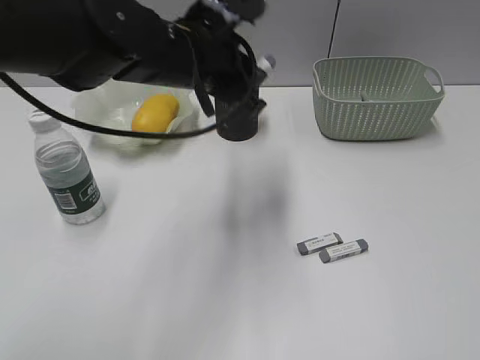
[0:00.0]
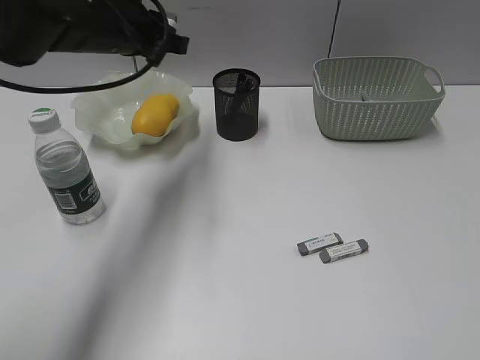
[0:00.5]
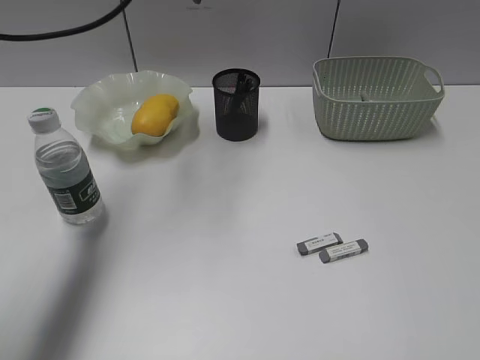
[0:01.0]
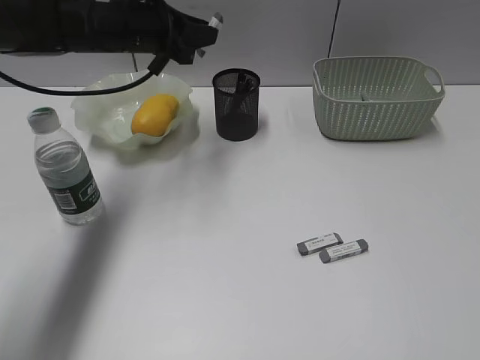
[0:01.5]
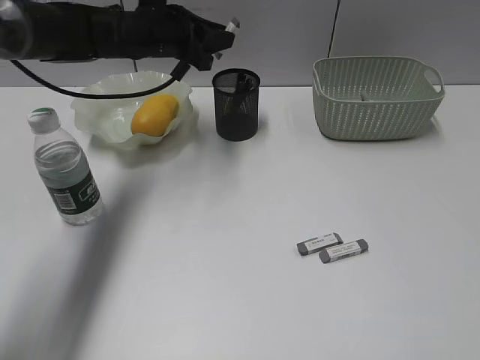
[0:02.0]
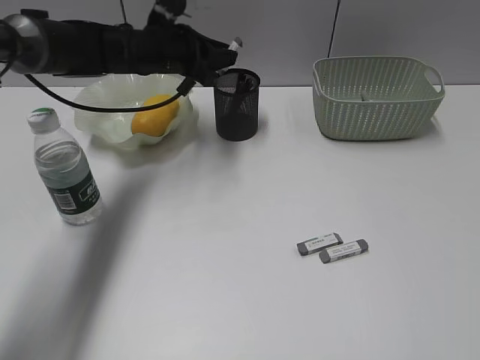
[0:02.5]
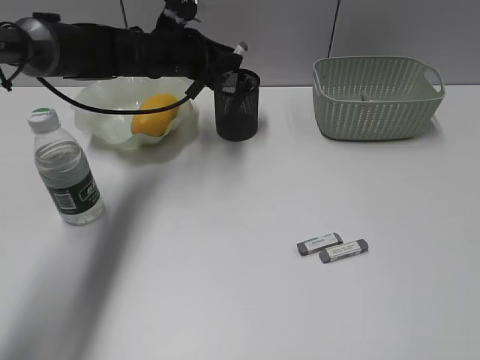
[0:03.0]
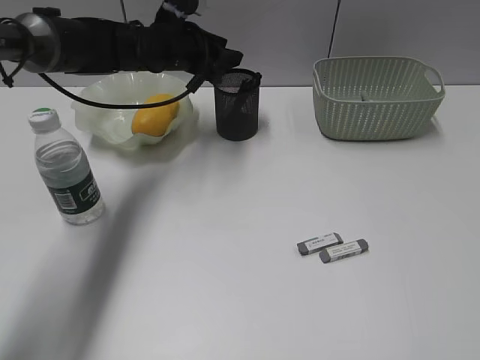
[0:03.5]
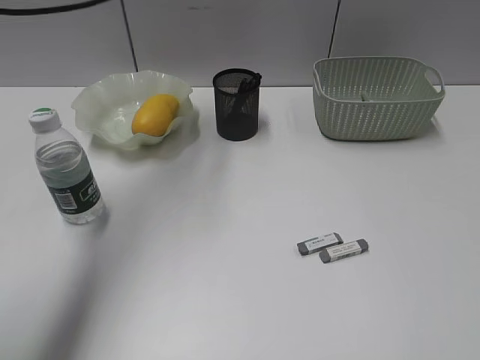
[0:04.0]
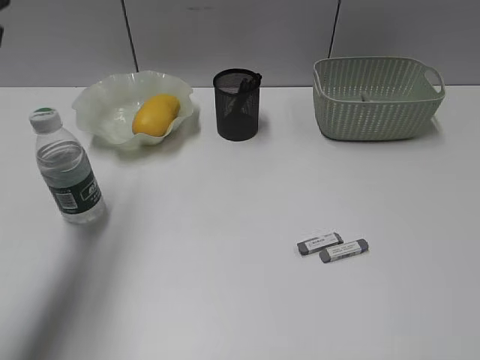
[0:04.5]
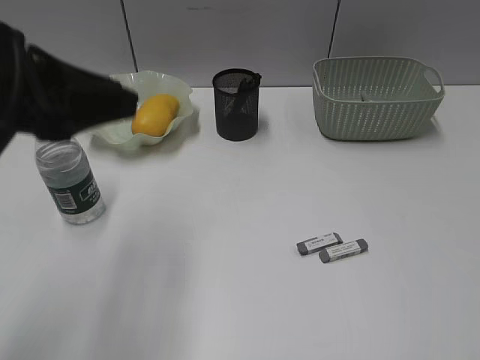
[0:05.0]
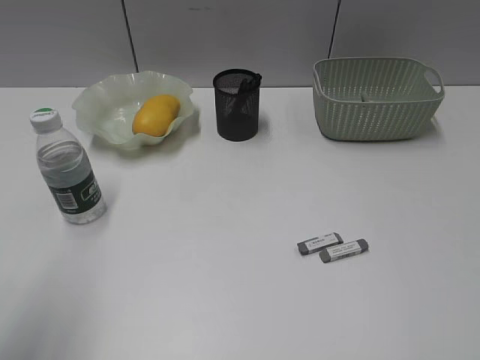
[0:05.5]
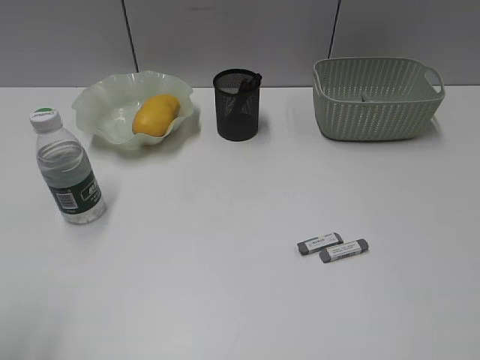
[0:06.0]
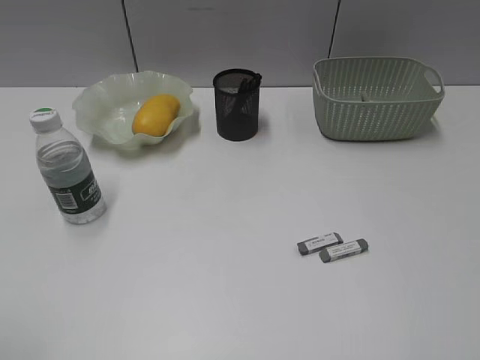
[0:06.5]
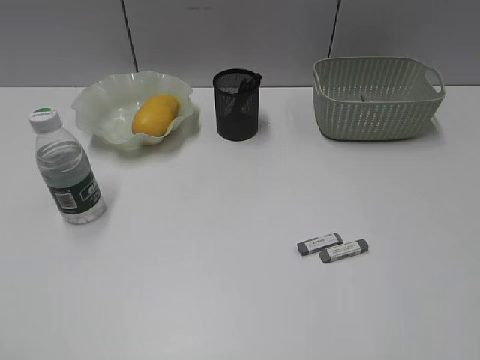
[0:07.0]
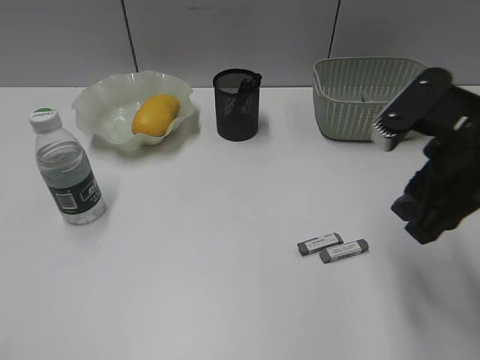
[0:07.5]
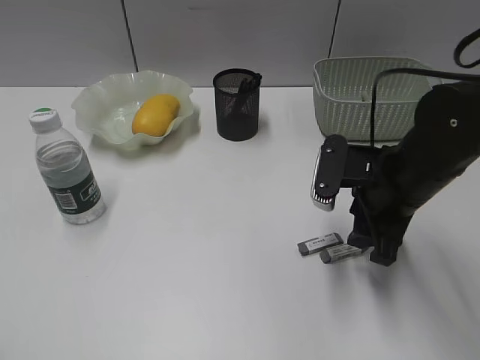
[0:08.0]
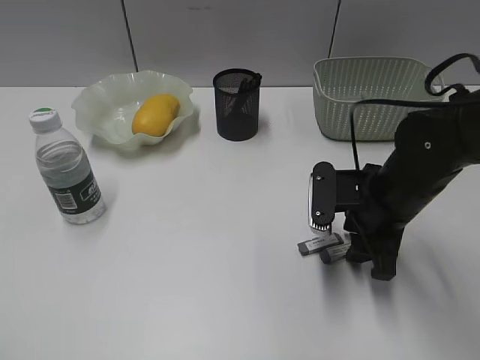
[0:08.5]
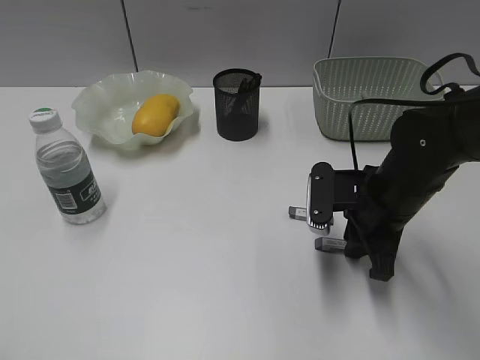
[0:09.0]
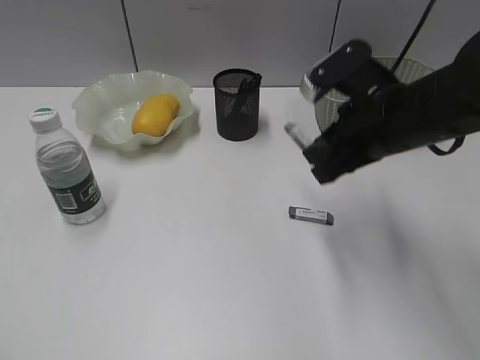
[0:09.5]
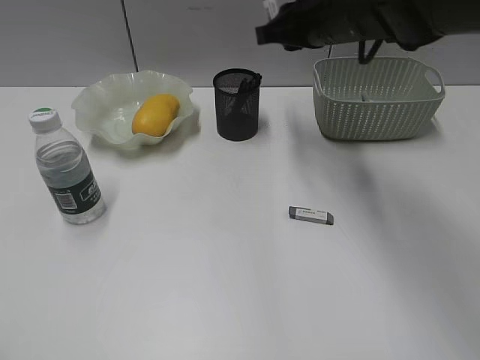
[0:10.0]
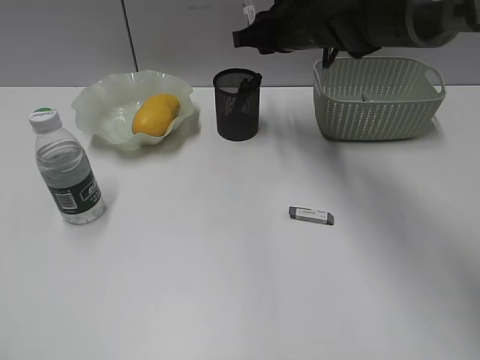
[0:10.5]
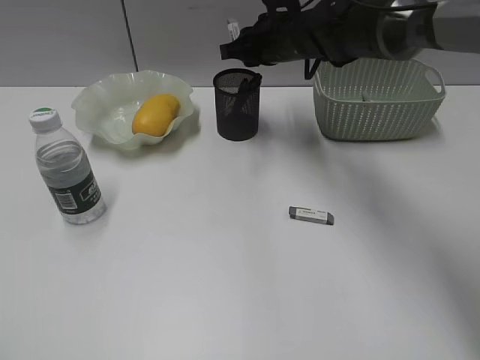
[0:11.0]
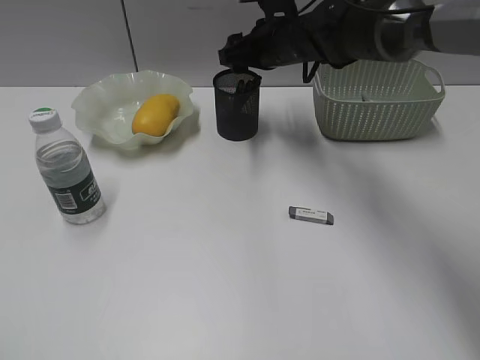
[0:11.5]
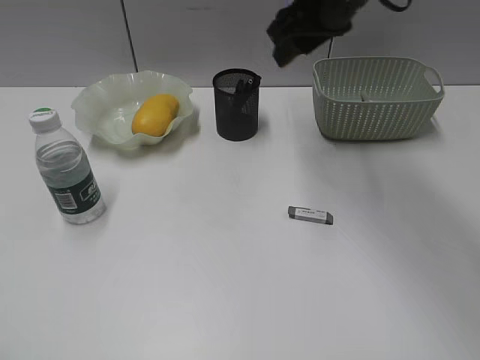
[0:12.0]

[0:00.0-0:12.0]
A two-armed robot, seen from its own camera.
Step, 0:00.0 to 0:03.5: Place the eraser in pen holder with left gripper.
Step, 0:04.0 to 0:09.0: Grasp the eraser with right gripper.
0:00.0 to 0:02.0: The left gripper heads forward and to the left, covering roughly 15 cm.
0:02.0 to 0:04.0: The left gripper heads upward and backward, covering roughly 15 cm, and opens its fingers.
0:04.0 to 0:06.0: The left gripper travels backward by roughly 35 cm.
0:06.0 to 0:08.0: The right gripper shifts about 35 cm forward, to the left and downward, while the left gripper travels backward by roughly 5 cm.
0:08.0 to 0:10.0: The right gripper is displaced forward, upward and to the left by roughly 20 cm, and closes.
0:10.0 to 0:12.0: The right gripper opens.

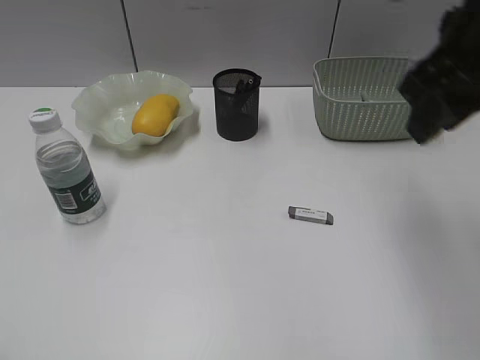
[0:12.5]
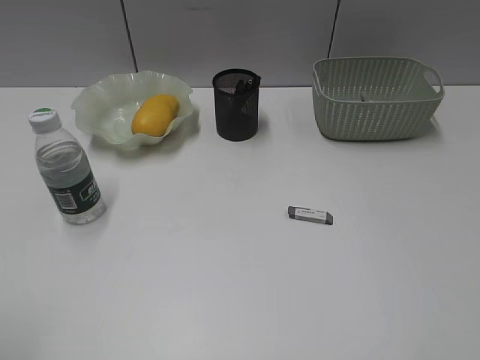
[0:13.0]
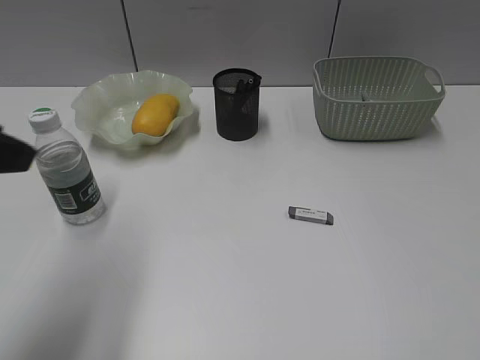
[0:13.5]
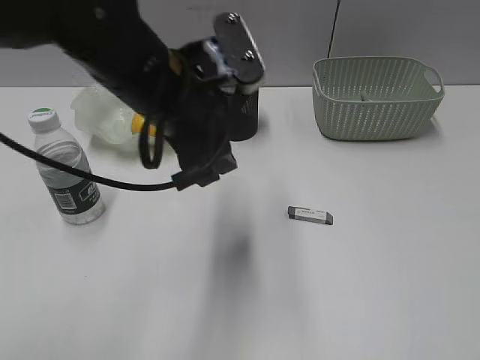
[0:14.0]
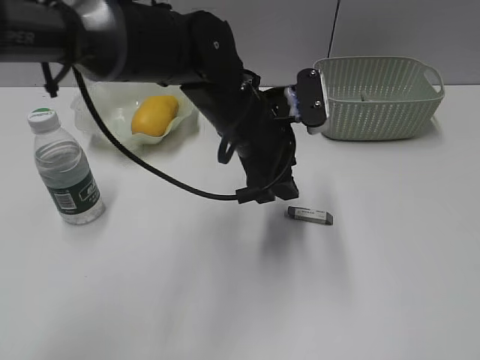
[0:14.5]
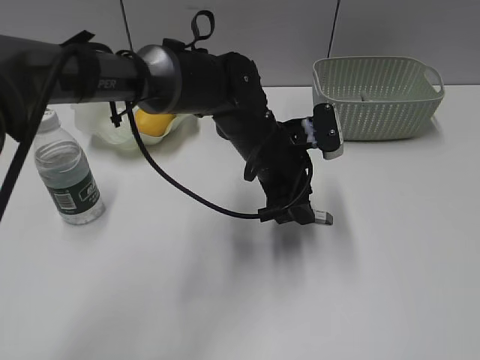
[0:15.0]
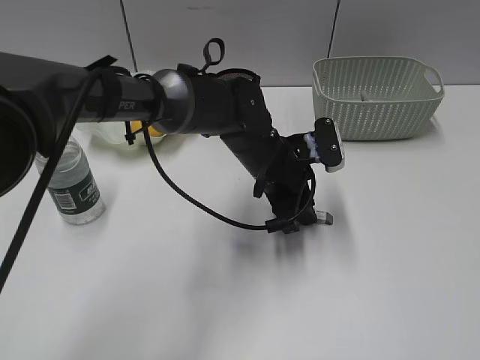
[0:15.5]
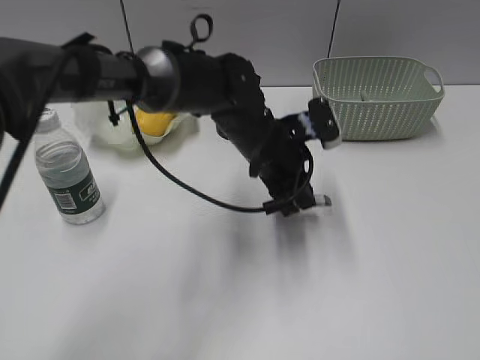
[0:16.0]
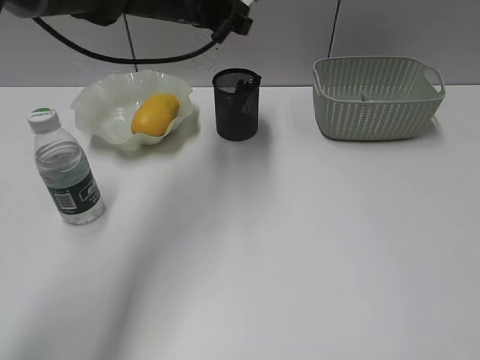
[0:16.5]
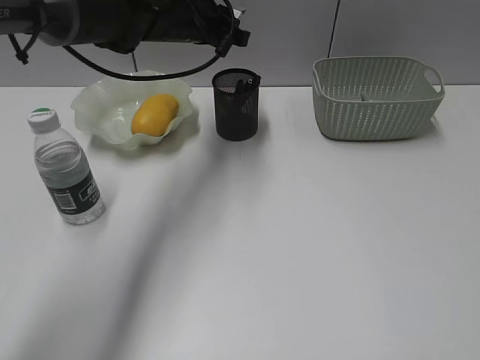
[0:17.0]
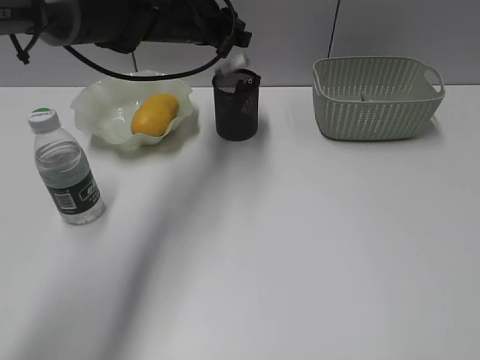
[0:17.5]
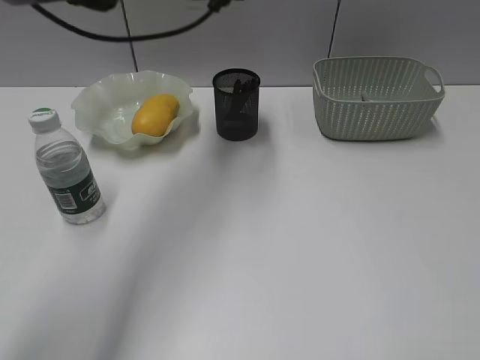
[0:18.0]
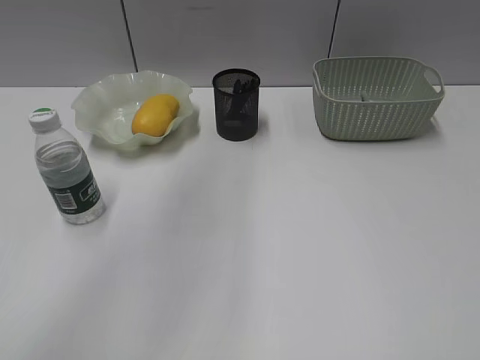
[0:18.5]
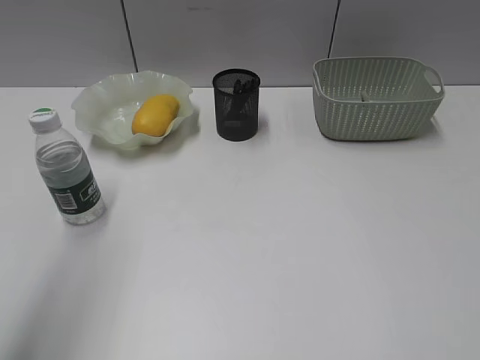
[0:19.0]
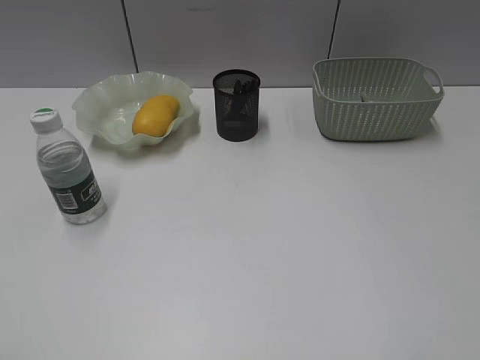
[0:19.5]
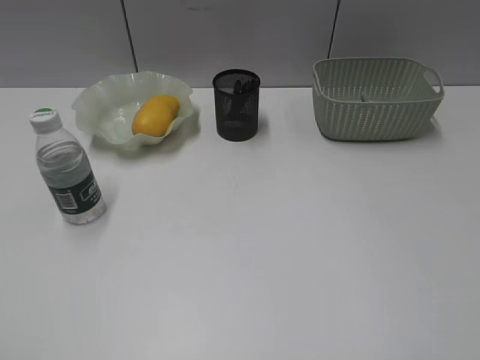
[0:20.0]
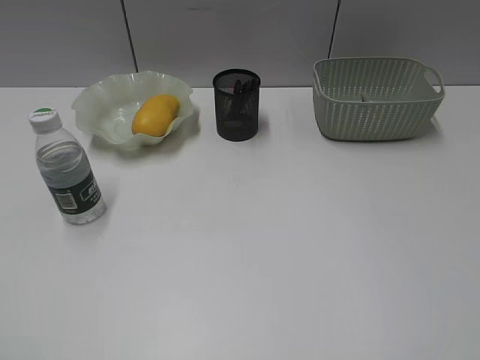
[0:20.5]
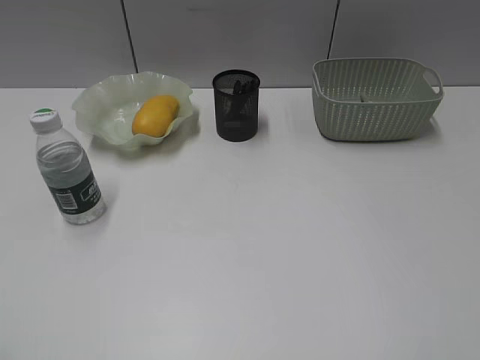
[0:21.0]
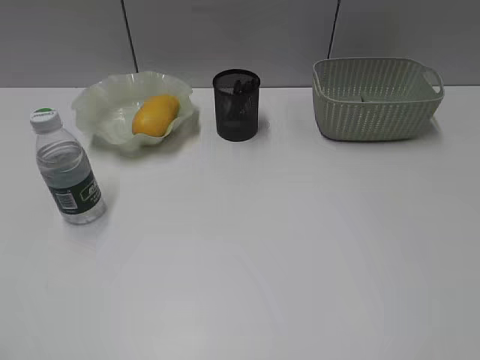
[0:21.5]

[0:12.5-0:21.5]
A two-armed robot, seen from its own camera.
Step, 0:12.5 to 0:16.0: Grasp the eraser with left gripper.
Step, 0:16.5 to 0:17.5: Place the eraser in pen holder with left gripper.
0:12.5 to 0:14.5: The left gripper moves forward and to the right, about 50 cm, while the right gripper is displaced backward and to the right by some 30 cm.
0:14.5 to 0:17.0: The left gripper shifts about 15 cm forward and to the left, moves some 10 cm upward and comes back, and closes its fingers.
0:17.0 to 0:19.5: The left gripper is displaced backward and to the left by roughly 60 cm.
